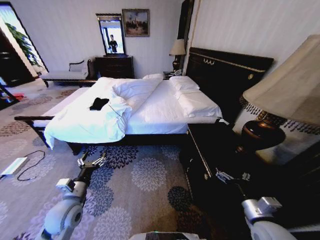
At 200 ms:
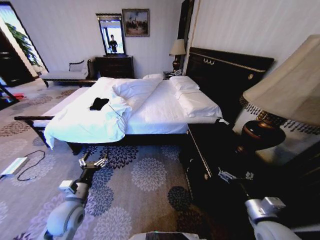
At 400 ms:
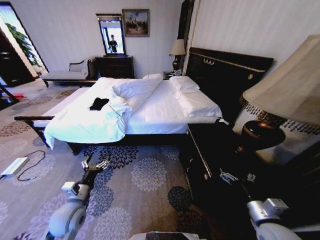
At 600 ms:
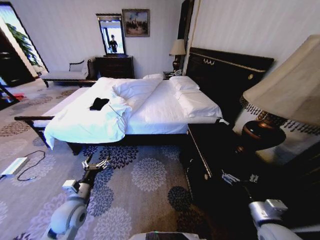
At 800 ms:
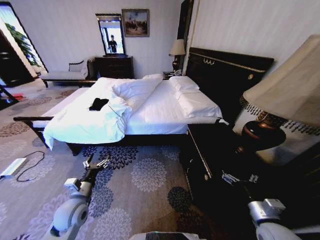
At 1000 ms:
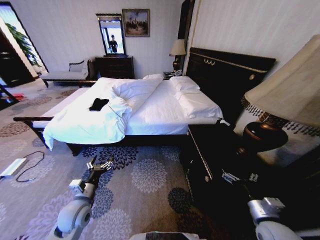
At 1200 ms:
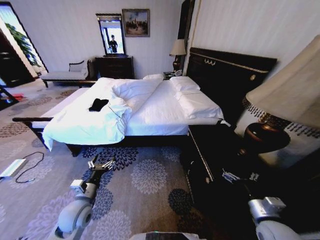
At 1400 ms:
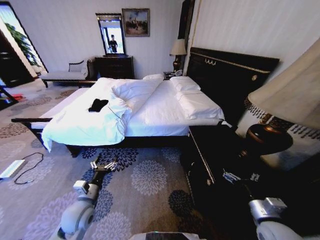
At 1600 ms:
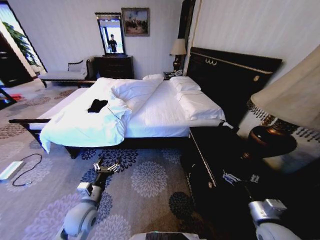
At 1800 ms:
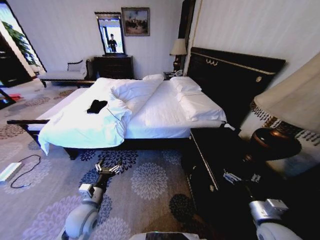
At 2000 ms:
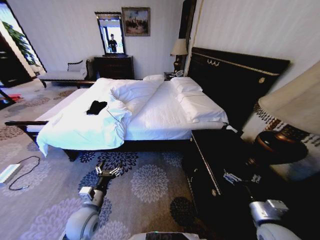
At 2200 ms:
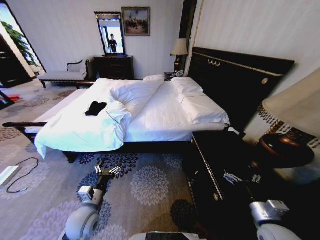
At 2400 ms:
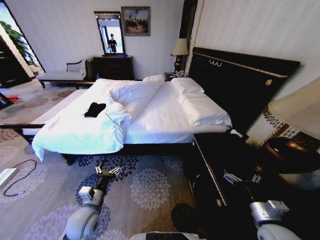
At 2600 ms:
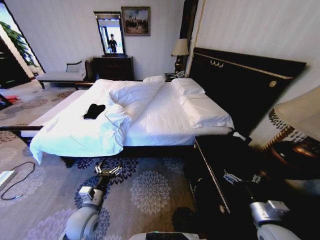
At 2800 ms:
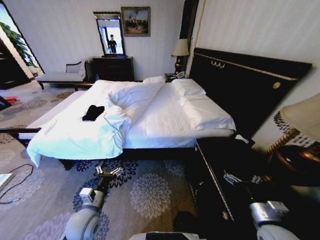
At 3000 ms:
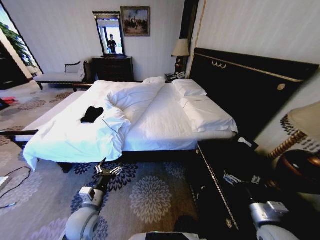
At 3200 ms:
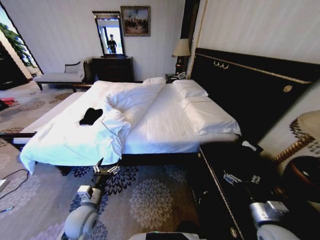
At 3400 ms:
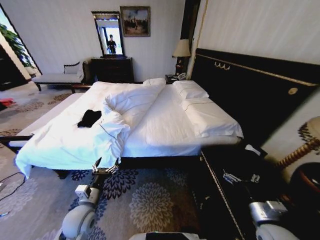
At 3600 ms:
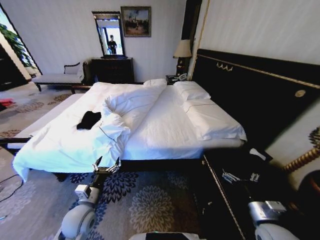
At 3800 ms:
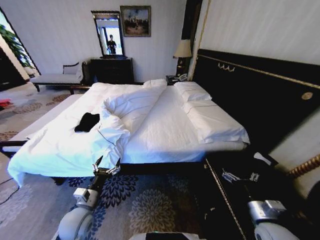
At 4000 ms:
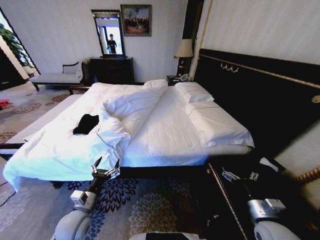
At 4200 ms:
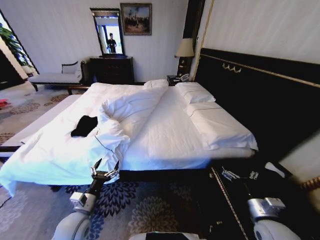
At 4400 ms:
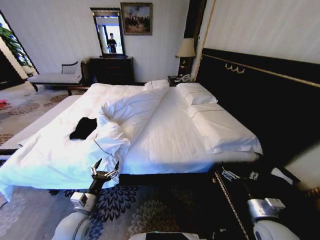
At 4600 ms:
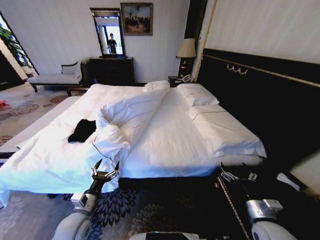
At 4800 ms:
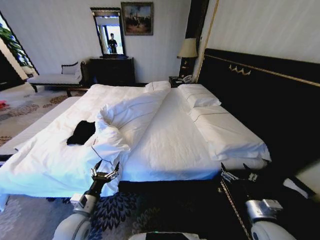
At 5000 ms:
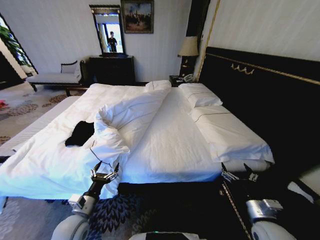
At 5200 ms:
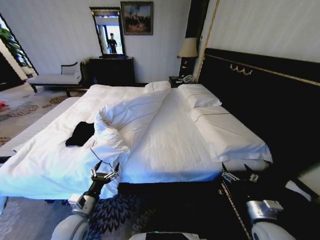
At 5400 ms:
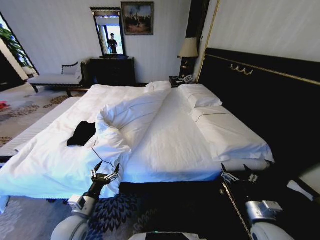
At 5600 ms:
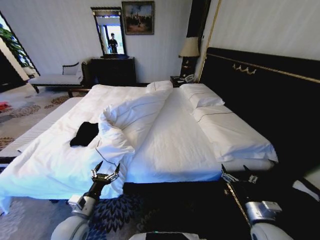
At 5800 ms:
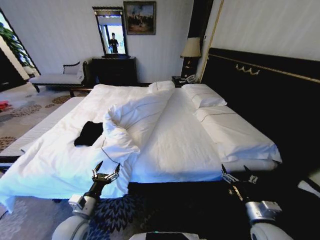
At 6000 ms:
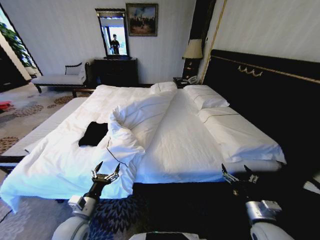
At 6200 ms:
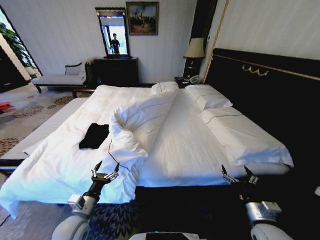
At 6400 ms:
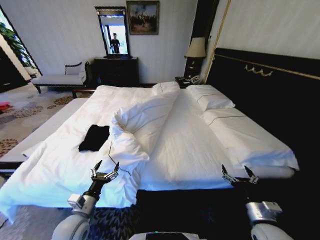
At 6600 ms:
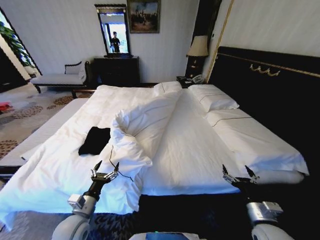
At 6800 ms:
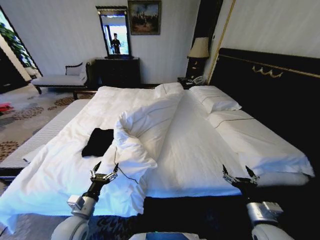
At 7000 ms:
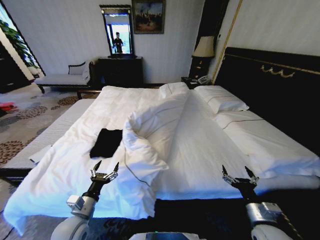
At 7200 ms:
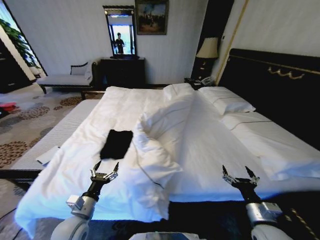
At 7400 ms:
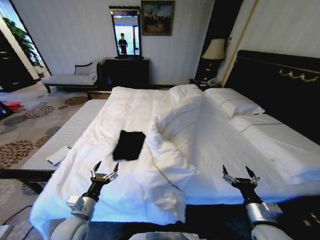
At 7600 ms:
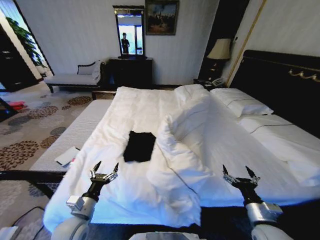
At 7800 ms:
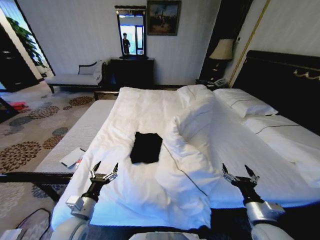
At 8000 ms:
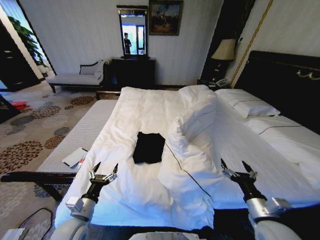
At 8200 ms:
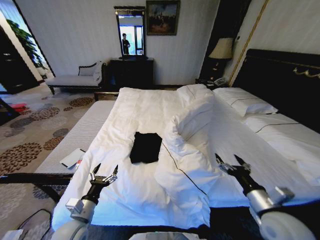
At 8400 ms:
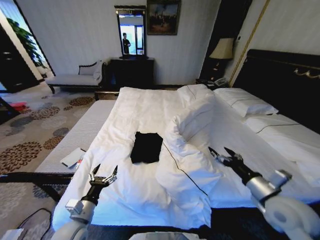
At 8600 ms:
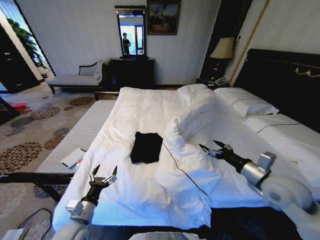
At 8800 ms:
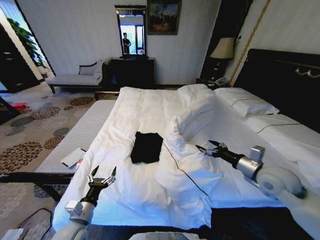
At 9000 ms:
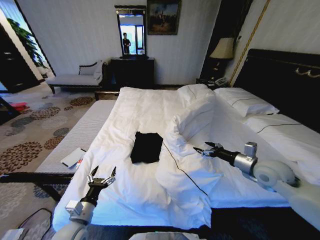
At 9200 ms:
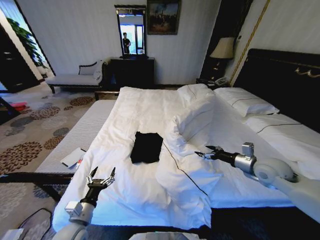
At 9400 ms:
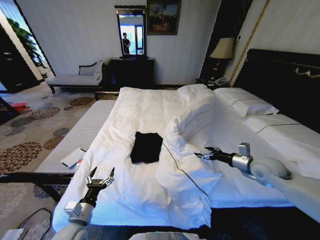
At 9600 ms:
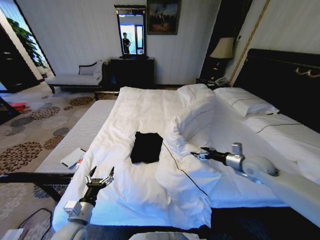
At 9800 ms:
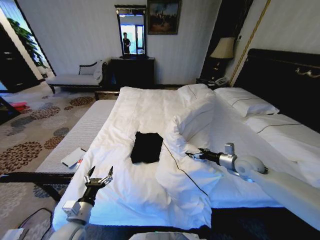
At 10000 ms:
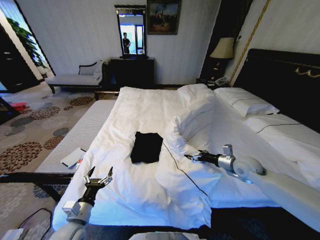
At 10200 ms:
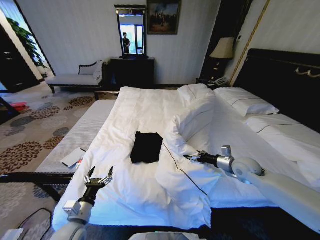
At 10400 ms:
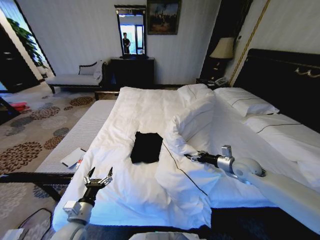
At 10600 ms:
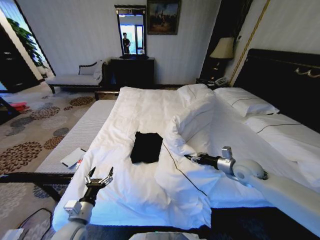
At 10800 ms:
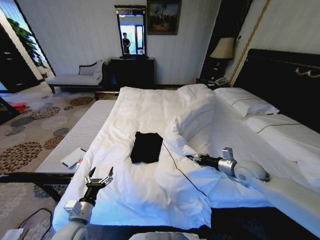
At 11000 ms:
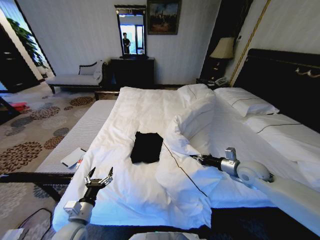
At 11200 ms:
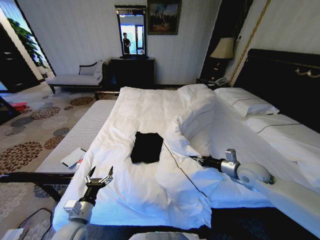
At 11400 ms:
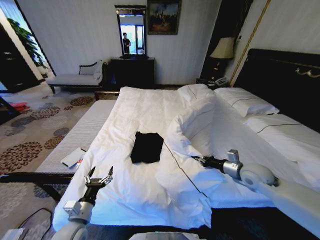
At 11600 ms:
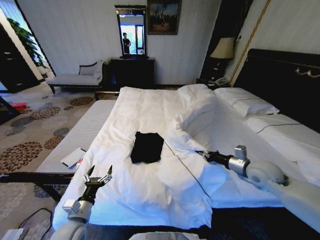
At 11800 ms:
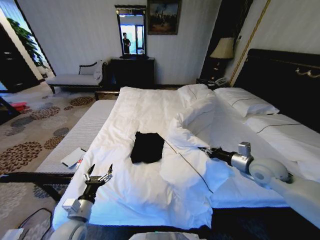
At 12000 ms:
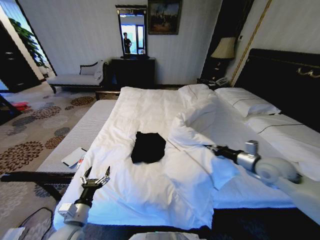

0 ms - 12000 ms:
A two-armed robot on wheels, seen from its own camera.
Task of the whole recording: Fold the clothes on the bed.
7600 ms - 9000 ms: The right gripper travels forward and upward by some 20 cm.
9000 ms - 10400 ms: The right gripper is displaced downward and forward by about 10 cm.
10400 ms - 12000 ms: The right gripper travels upward by approximately 5 cm, and closes.

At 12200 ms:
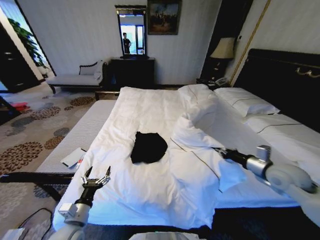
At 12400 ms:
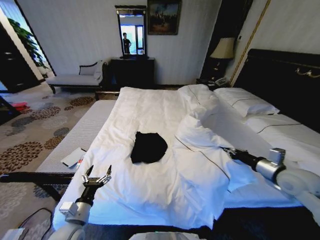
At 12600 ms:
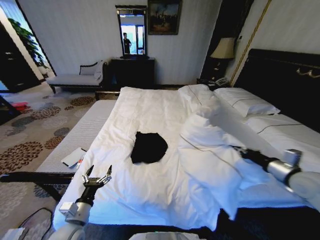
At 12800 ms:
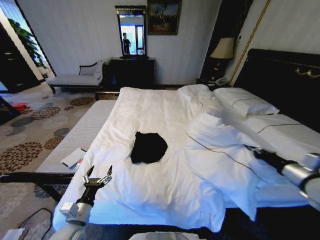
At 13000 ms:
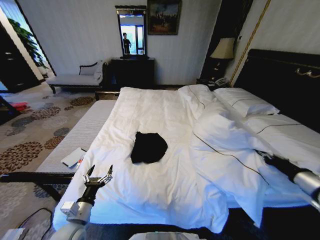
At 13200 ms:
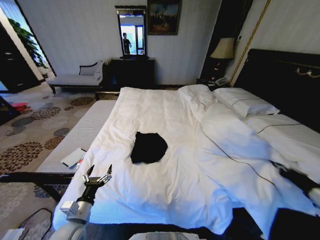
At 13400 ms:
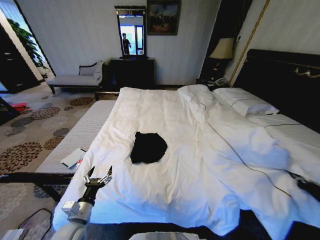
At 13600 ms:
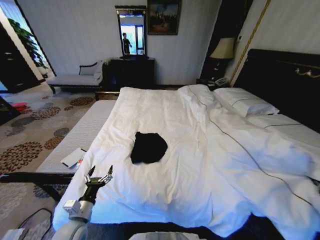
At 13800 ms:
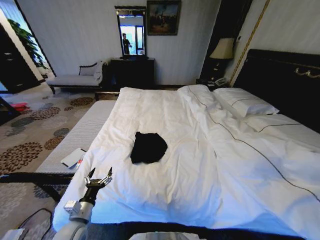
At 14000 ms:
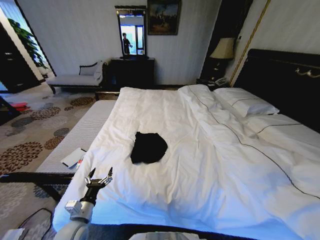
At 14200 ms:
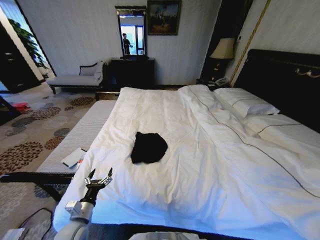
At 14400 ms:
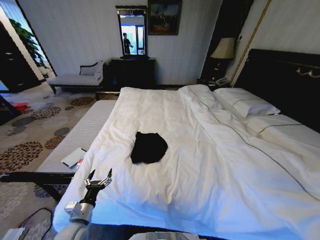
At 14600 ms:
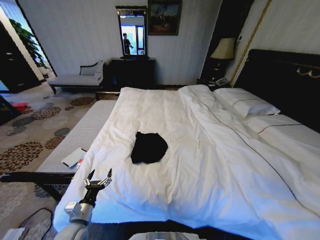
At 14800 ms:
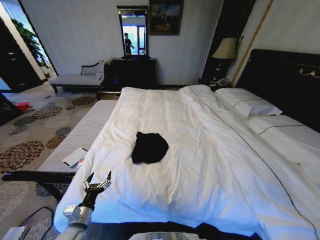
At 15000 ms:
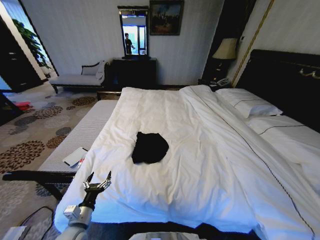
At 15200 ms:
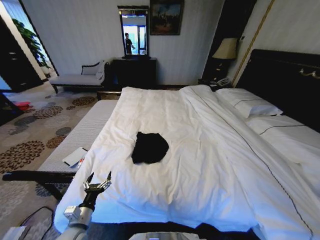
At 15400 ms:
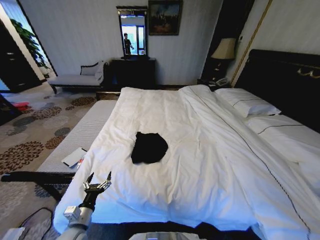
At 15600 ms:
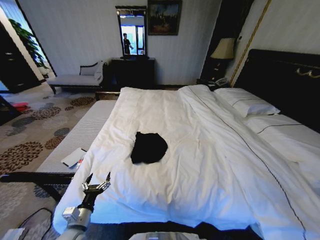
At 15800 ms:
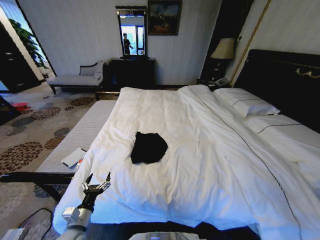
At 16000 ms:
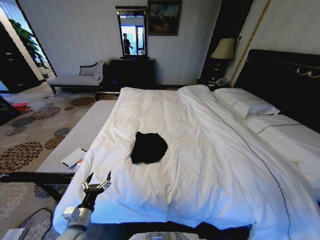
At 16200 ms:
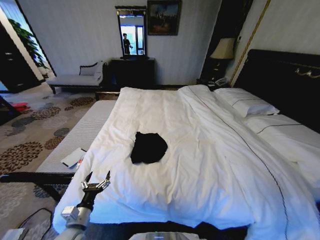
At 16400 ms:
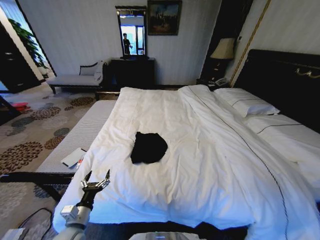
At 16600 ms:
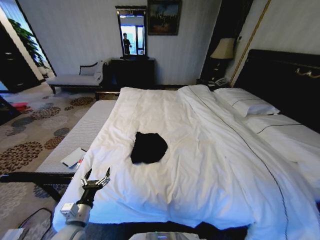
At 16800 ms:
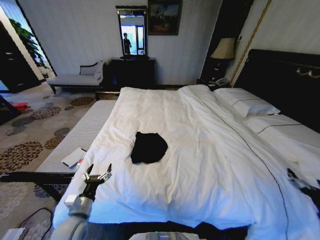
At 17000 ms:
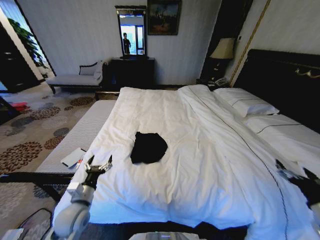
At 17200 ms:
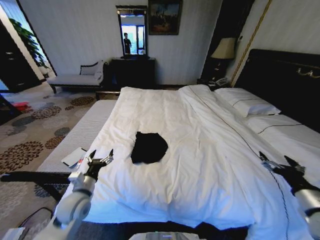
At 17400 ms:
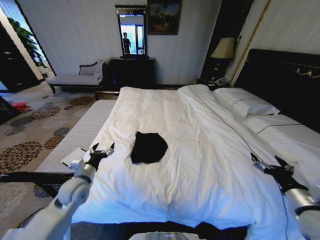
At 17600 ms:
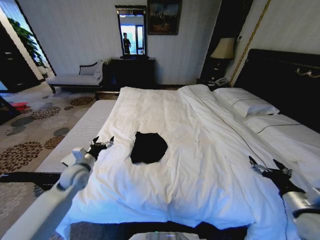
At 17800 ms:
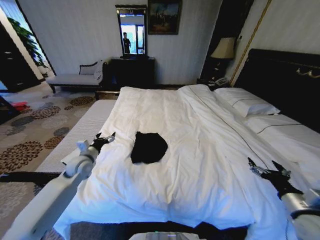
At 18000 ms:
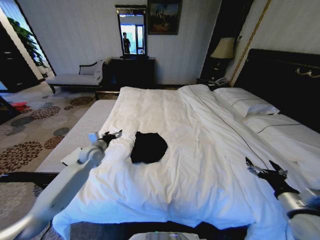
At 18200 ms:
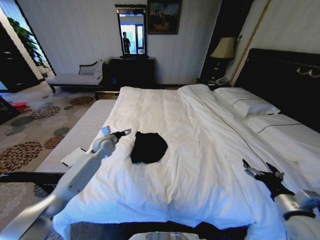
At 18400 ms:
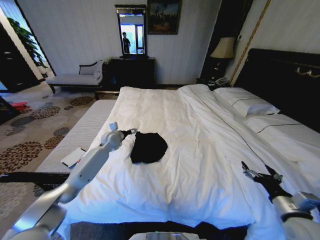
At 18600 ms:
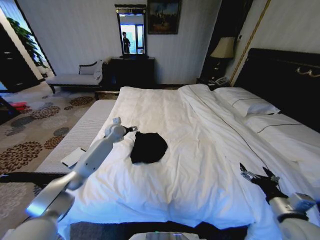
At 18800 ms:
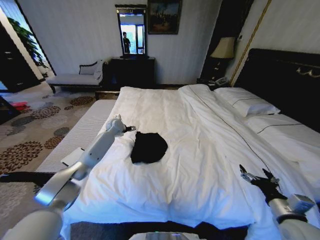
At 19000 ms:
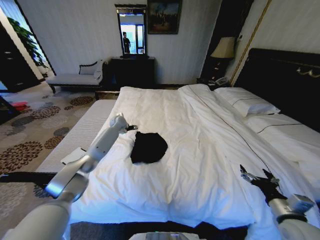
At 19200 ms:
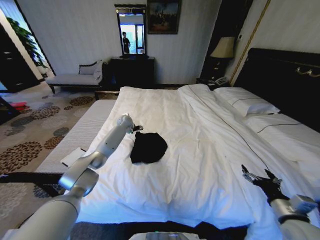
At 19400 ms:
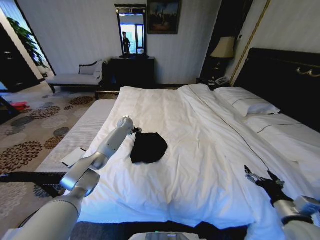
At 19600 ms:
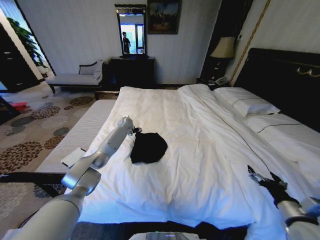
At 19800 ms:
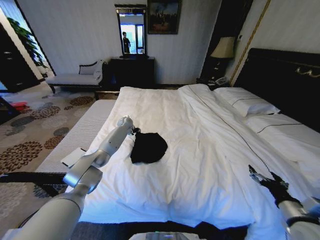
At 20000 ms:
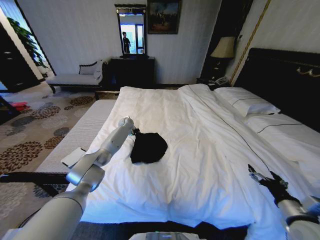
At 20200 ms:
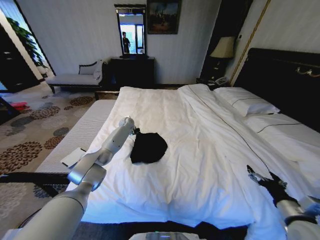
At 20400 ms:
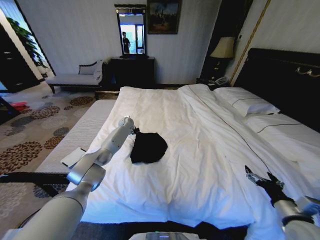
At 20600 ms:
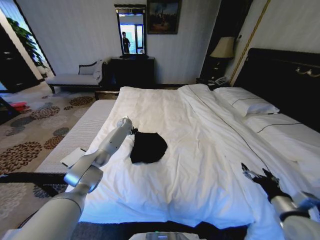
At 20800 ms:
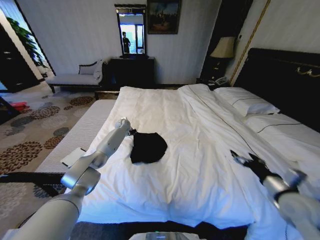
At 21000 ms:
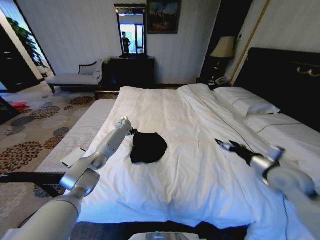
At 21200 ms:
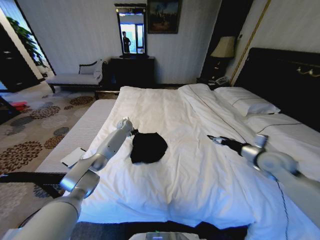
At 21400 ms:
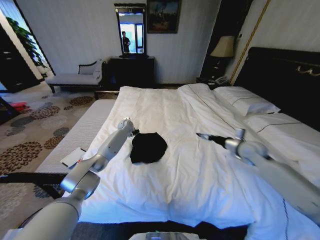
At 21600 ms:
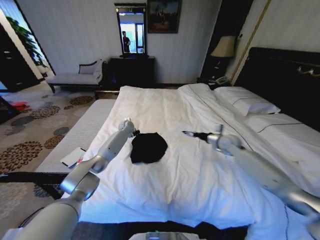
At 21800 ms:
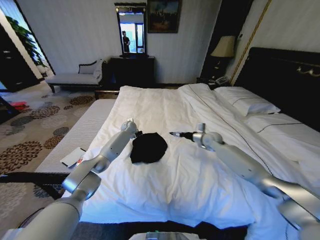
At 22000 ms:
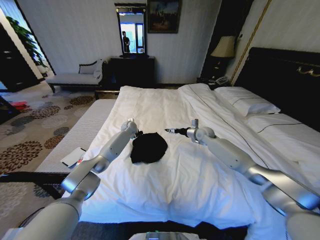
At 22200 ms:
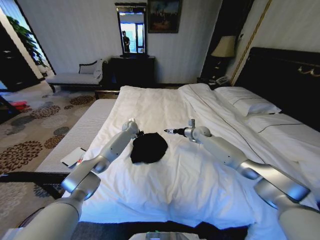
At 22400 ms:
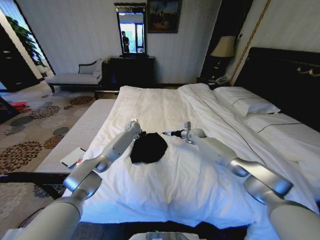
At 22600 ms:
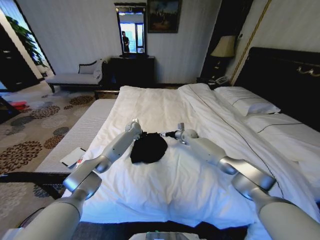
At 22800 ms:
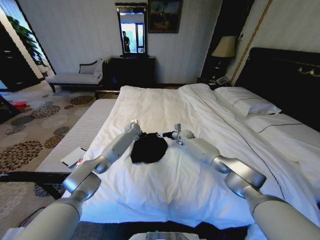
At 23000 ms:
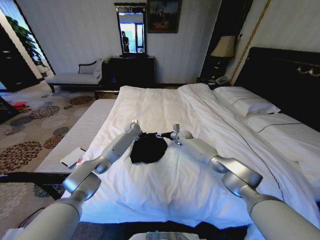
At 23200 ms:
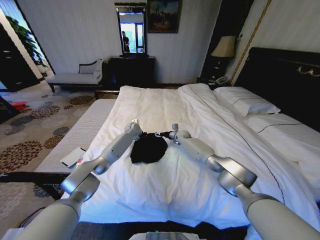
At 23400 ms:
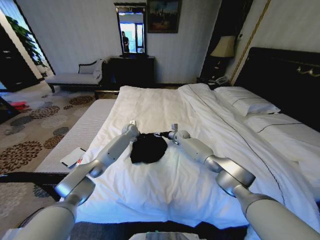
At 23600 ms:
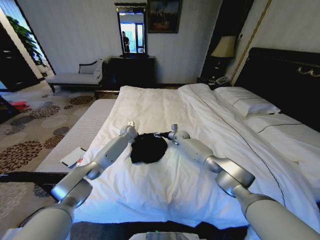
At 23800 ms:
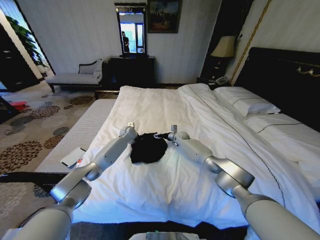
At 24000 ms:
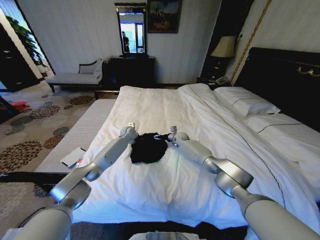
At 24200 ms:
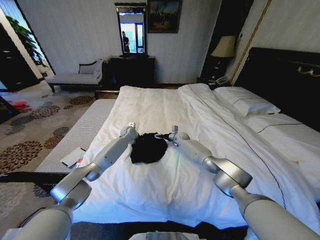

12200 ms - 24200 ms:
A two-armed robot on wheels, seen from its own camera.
Task of the whole recording: Fold the clothes on the bed.
12200 ms - 13800 ms: The right gripper is displaced backward and to the right by approximately 30 cm.
13800 ms - 15200 ms: The right gripper shifts approximately 20 cm downward and backward.
15200 ms - 16600 ms: The right gripper goes approximately 15 cm upward, forward and to the left, and opens.
16600 ms - 18200 ms: The right gripper moves to the left and forward, some 20 cm. Meanwhile the left gripper moves forward, roughly 35 cm.
18200 ms - 19800 ms: The left gripper goes approximately 20 cm forward and to the right, and closes.
19800 ms - 21200 ms: The left gripper closes its fingers. The right gripper moves forward, approximately 20 cm.
21200 ms - 22600 ms: The left gripper is displaced to the right by roughly 5 cm; the right gripper shifts about 35 cm forward, to the left and downward.
22600 ms - 24200 ms: The right gripper moves some 5 cm.
